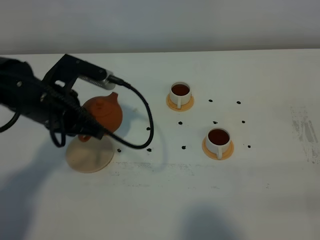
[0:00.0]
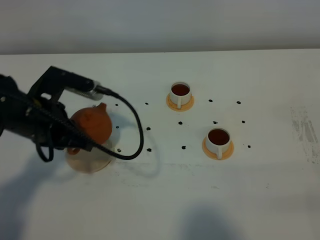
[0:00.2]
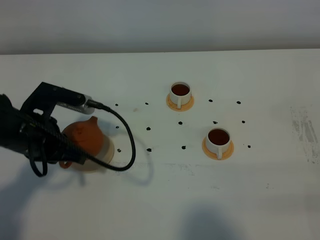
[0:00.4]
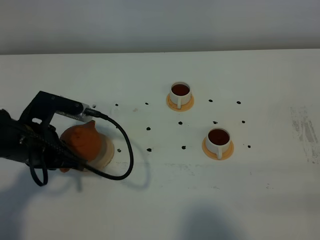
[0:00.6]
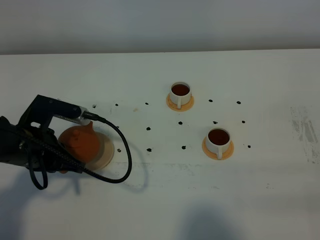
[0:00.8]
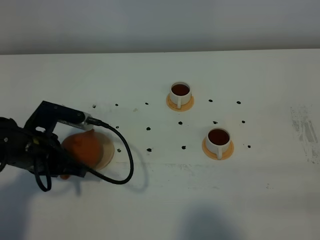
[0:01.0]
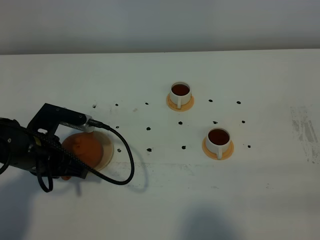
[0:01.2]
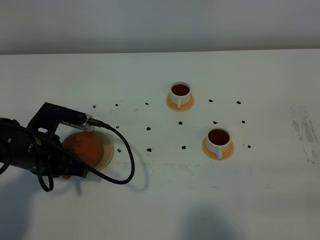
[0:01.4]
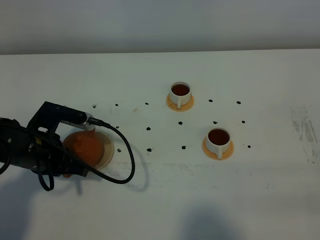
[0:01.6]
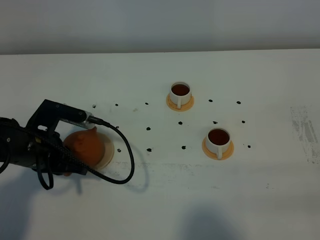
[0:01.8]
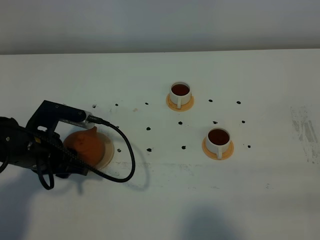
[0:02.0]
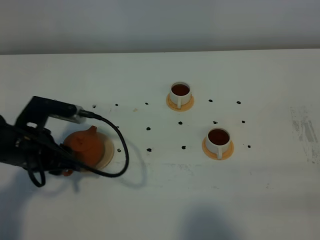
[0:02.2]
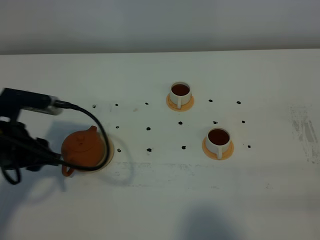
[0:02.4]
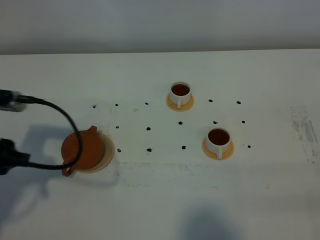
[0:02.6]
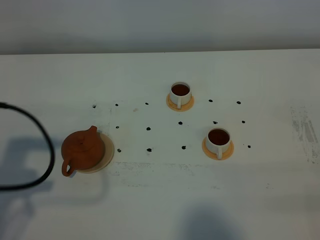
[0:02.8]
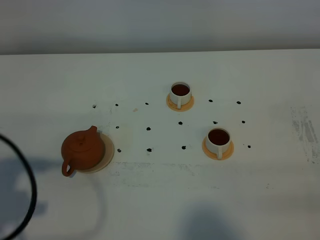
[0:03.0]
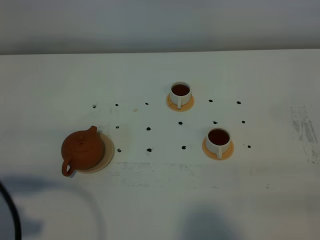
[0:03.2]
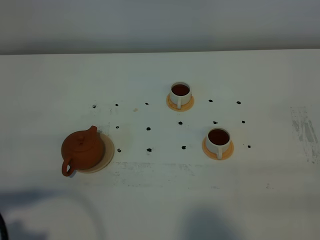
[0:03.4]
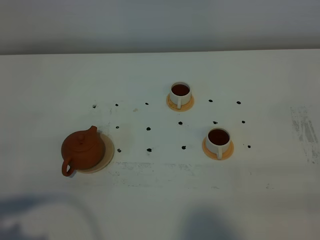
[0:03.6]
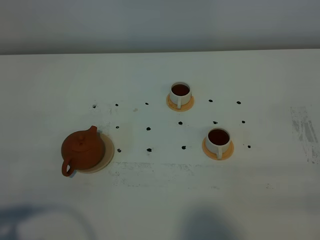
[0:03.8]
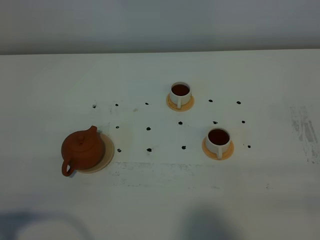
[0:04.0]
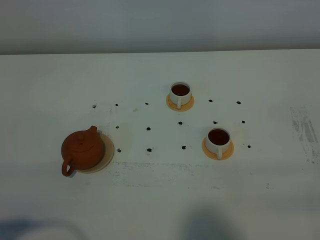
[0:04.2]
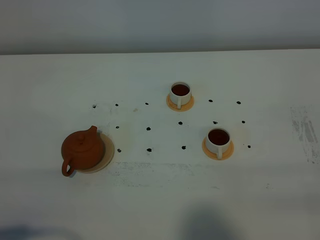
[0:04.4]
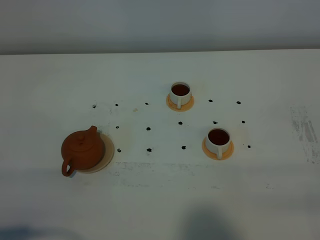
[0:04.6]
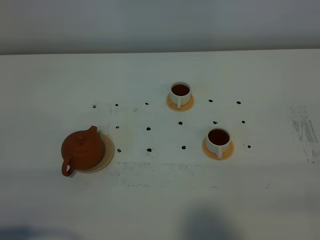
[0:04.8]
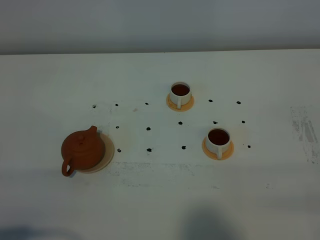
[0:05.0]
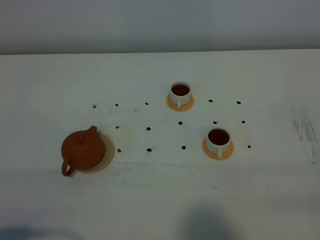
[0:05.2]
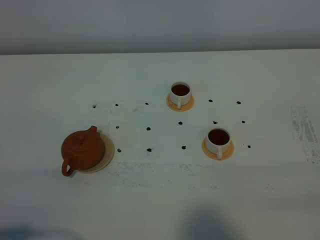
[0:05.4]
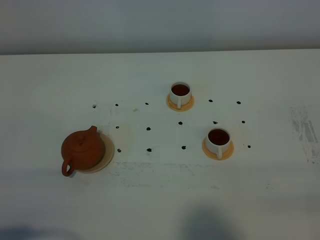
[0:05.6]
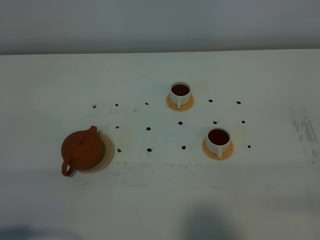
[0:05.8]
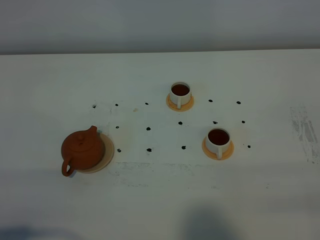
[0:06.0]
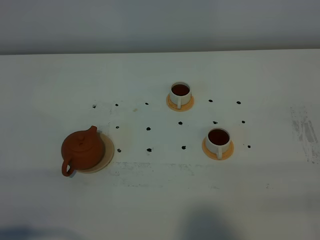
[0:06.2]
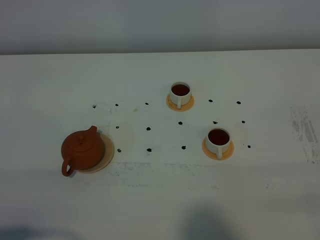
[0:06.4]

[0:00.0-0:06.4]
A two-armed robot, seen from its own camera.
Task of the whole recording: grasp the brown teapot and pour the tea into the two white teacups one by one, put the brown teapot back in its original place.
0.0 to 1.6 s: The left gripper goes some 5 cm downward.
1.6 to 3.2 s: The left gripper moves backward, upward and to the left, roughly 25 cm, and opens up.
3.2 to 4.8 s: The left gripper moves backward and downward, approximately 10 cm.
4.8 to 6.4 s: Both grippers stay put.

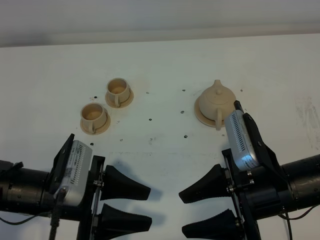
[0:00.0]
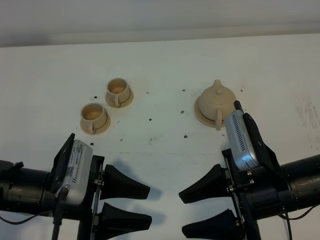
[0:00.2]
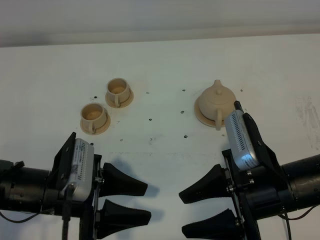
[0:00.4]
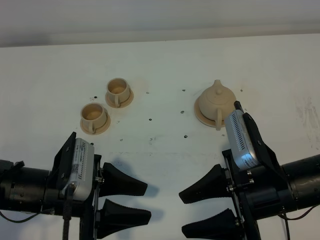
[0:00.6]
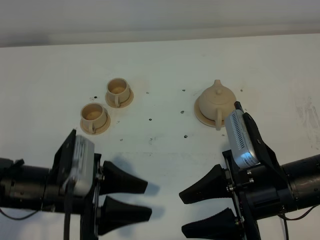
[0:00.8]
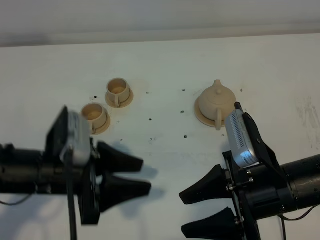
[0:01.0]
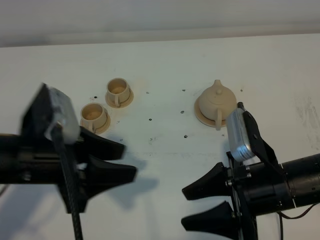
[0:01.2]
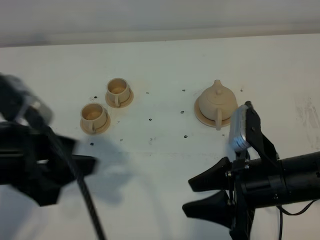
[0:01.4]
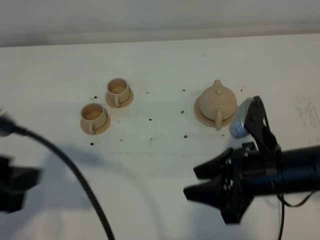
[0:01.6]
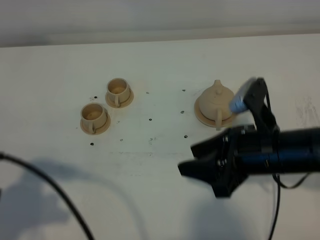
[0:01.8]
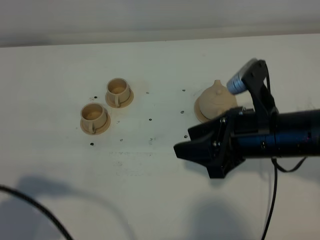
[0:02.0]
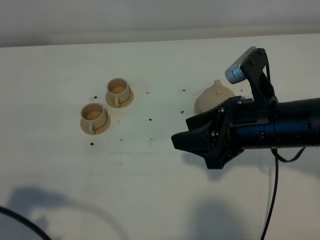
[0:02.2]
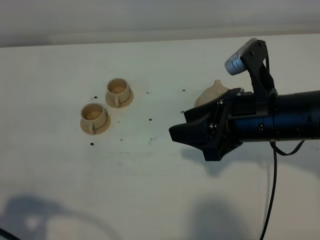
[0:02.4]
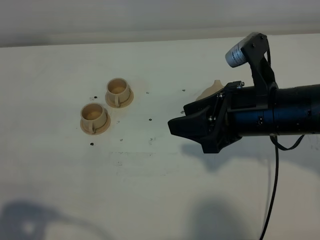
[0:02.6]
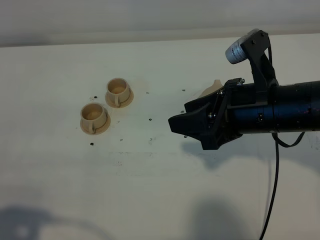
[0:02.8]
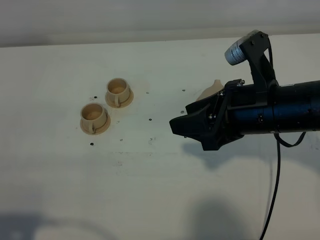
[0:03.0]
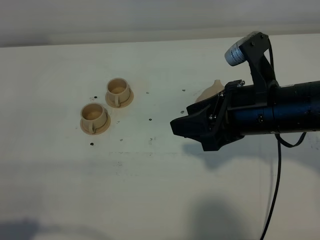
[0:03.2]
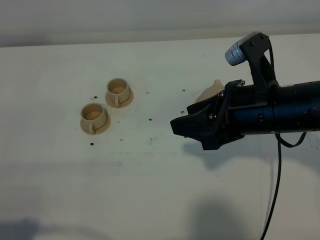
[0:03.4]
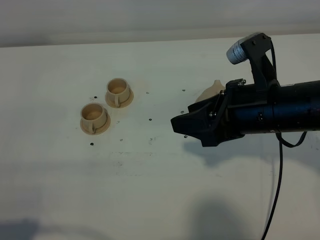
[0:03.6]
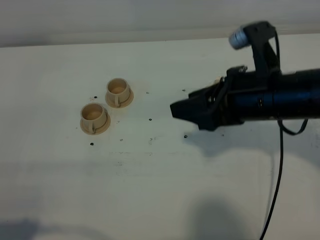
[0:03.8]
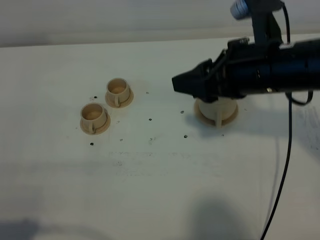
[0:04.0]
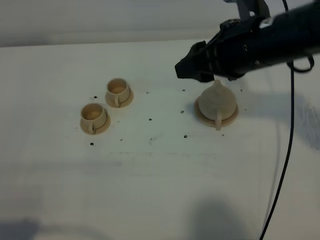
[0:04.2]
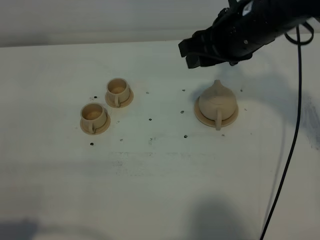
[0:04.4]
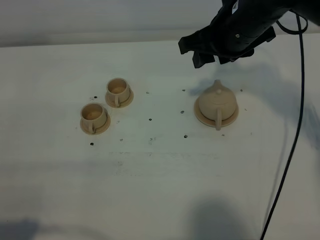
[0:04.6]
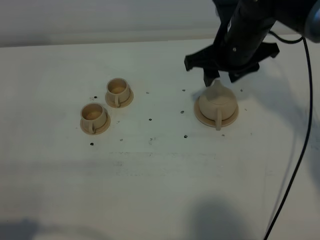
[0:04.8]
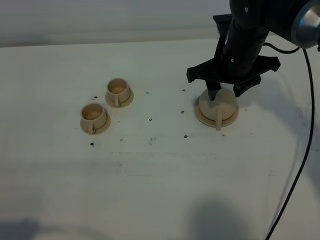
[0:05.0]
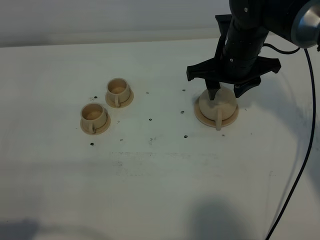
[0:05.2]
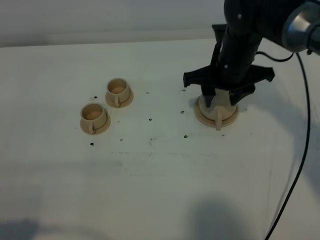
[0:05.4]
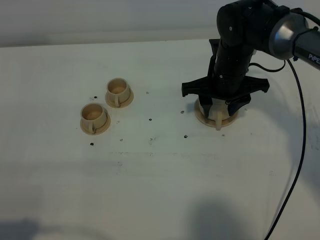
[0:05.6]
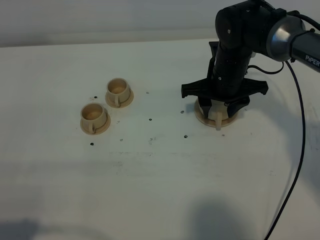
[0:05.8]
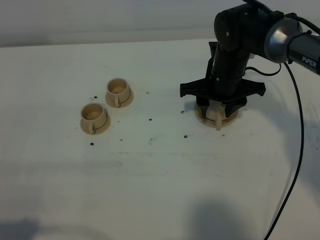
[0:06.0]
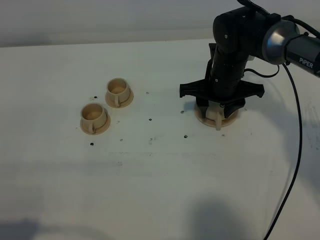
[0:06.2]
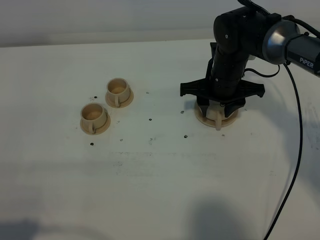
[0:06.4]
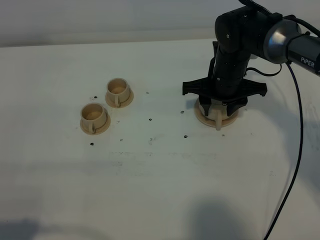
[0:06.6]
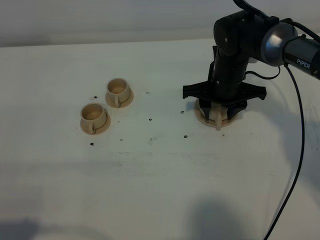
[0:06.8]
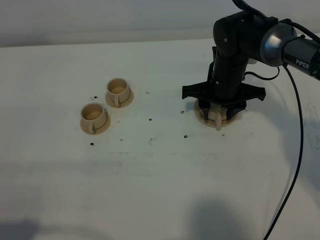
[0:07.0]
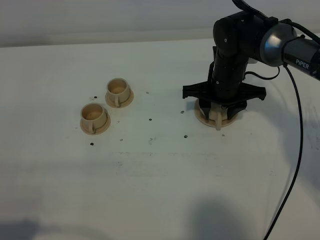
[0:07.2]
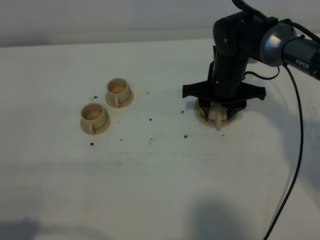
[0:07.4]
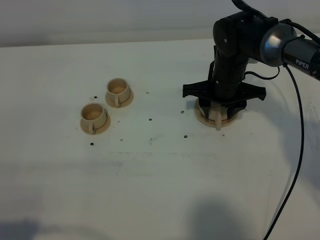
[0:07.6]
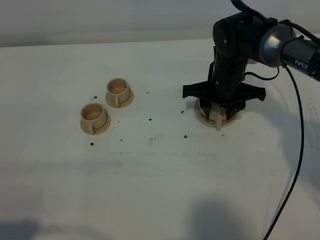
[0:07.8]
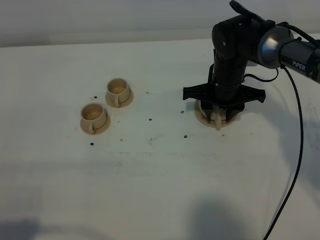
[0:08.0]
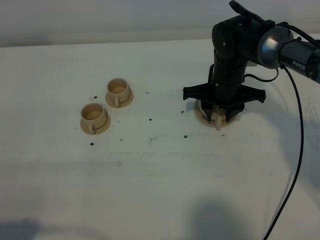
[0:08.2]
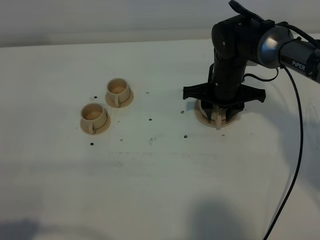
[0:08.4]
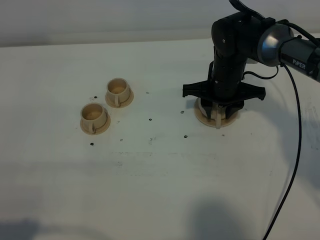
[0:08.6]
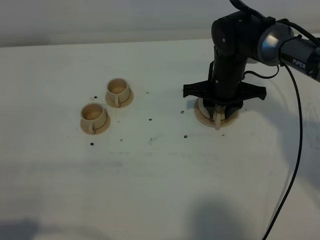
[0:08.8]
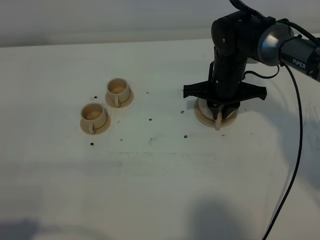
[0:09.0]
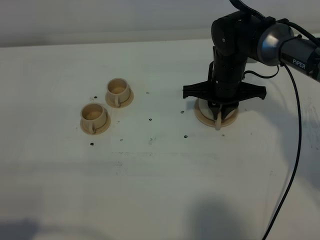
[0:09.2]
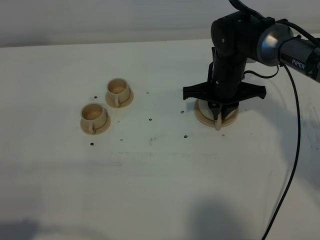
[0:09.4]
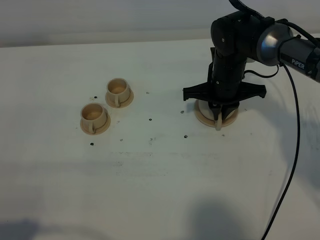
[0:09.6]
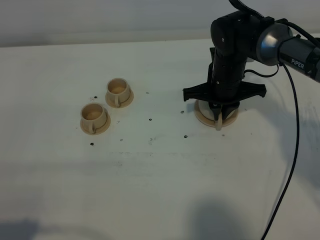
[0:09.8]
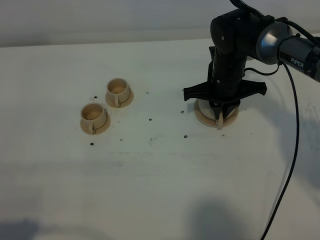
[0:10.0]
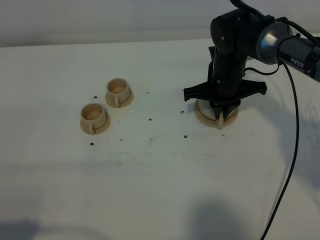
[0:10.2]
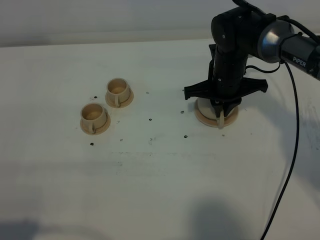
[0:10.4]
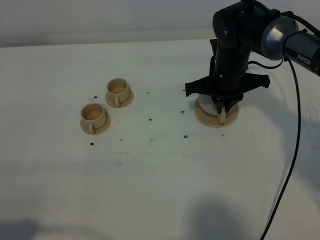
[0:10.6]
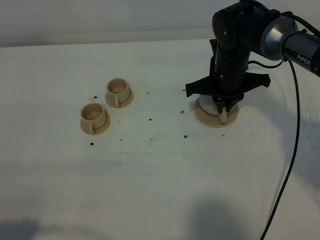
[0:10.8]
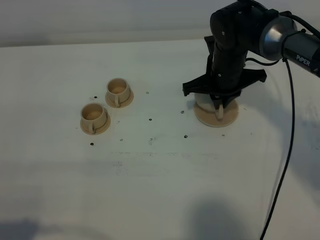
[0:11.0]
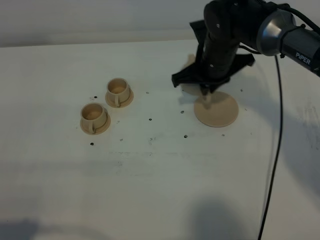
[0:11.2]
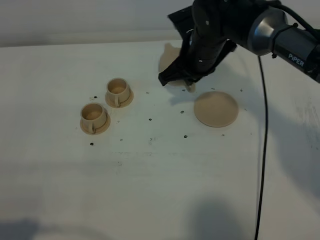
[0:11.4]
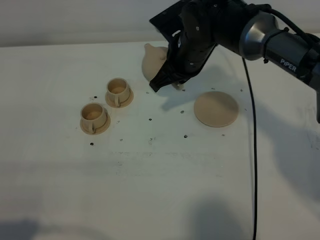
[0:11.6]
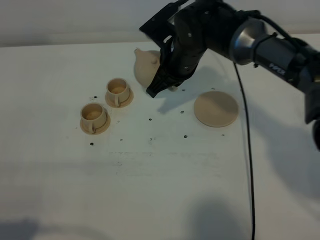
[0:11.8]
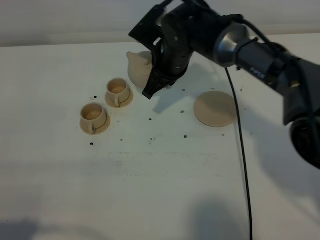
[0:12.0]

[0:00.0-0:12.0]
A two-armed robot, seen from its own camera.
Task of the whole recording: grasp the brown teapot and pour the tea into the two brown teacups one by one, put the brown teapot back in its original place.
Step, 0.0 to 10.6 s: Pick up the teapot with the right gripper.
0.0 to 1.6 s: The left gripper shifts some 15 cm upward and to the left.
1.6 to 3.0 s: The left gripper shifts some 10 cm backward; the right gripper goes some 5 cm upward.
3.0 to 4.4 s: The right gripper shifts about 10 cm forward.
4.4 to 6.0 s: The right gripper travels downward by roughly 15 cm.
6.0 to 7.6 s: The grippers move only a little.
7.6 to 9.0 s: The right gripper closes.
9.0 to 10.4 s: There are only small adjustments of the grippers.
10.4 to 12.0 s: The right gripper goes about 10 cm to the left.

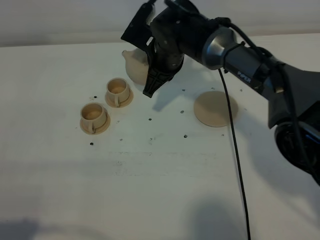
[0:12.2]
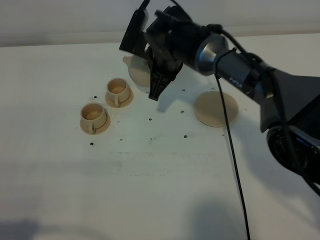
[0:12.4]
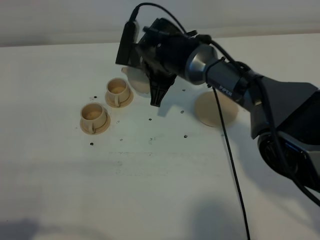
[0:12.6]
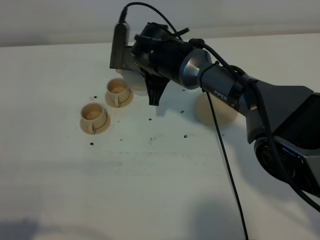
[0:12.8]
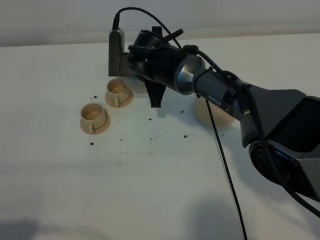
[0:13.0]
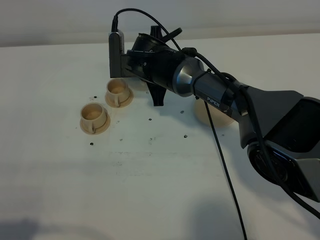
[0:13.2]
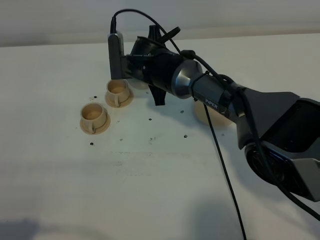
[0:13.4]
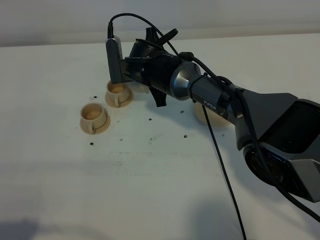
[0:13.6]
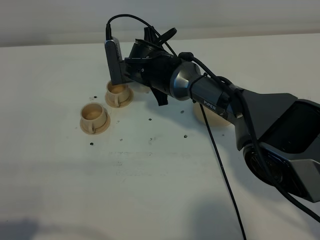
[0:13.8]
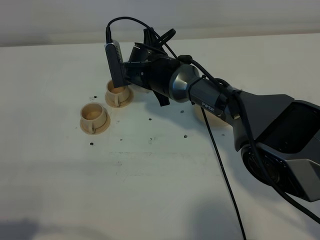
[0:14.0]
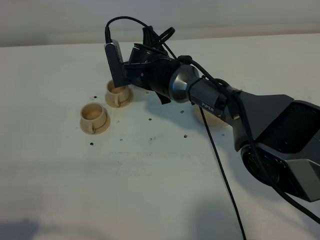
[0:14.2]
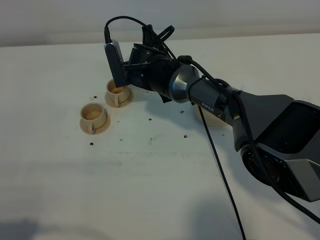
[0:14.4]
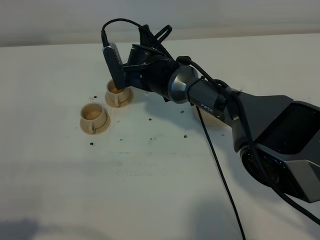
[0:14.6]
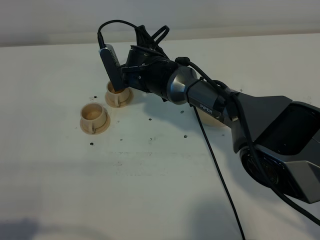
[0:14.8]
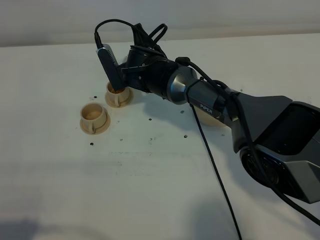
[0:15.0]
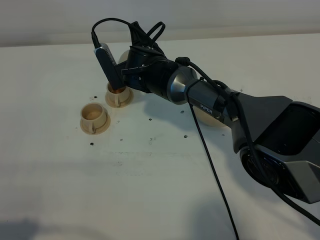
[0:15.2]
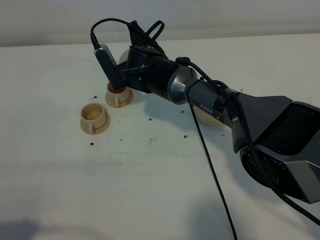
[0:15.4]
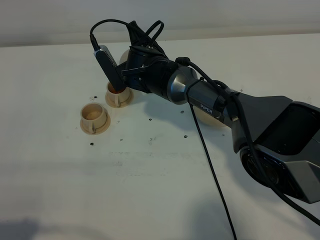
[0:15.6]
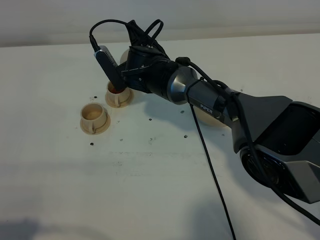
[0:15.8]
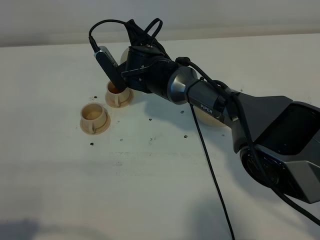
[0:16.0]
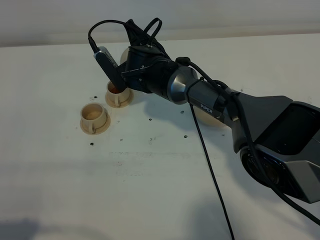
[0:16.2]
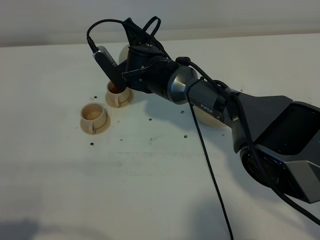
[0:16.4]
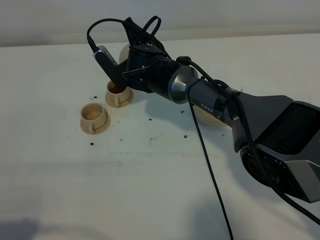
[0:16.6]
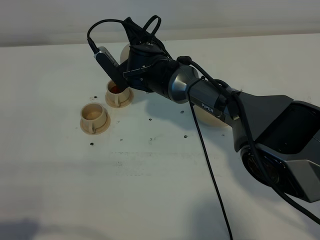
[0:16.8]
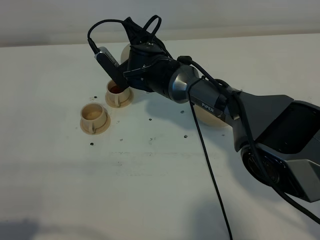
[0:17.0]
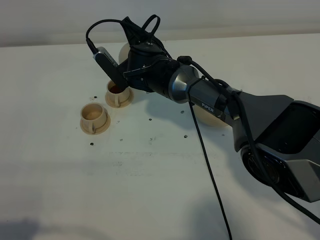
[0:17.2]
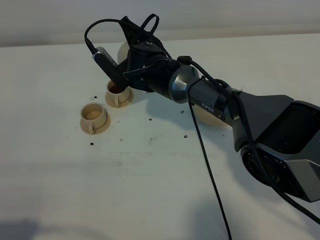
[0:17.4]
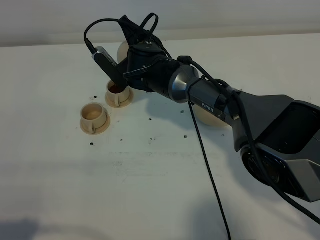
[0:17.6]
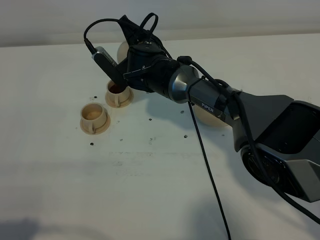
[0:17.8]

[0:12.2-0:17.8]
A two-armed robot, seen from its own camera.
Task of the whole recording: grasp the brown teapot and pour the tea into the two brown teacups one by one, put the brown teapot back in its original place.
13.6 to 15.0 s: There are only small adjustments of the grippers.
15.0 to 17.8 s: The grippers stay close to where they were, moving slightly.
